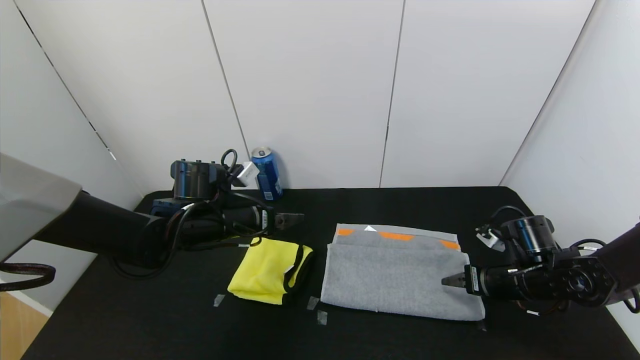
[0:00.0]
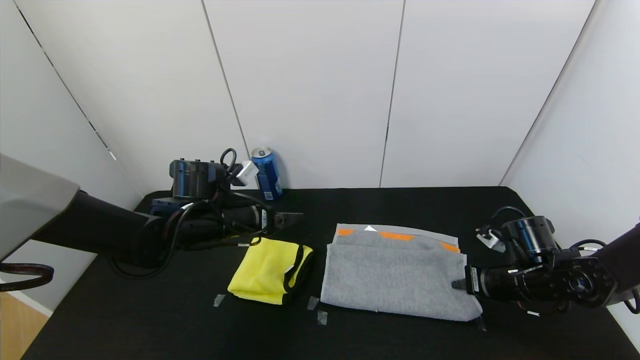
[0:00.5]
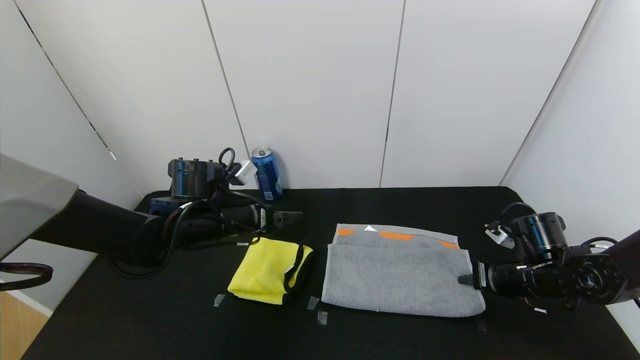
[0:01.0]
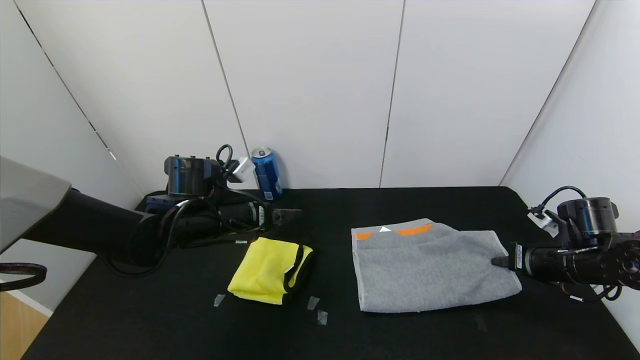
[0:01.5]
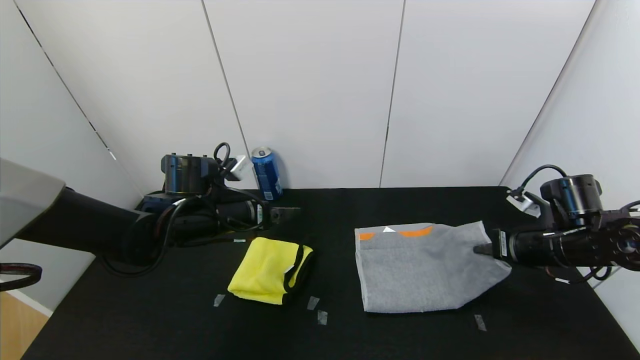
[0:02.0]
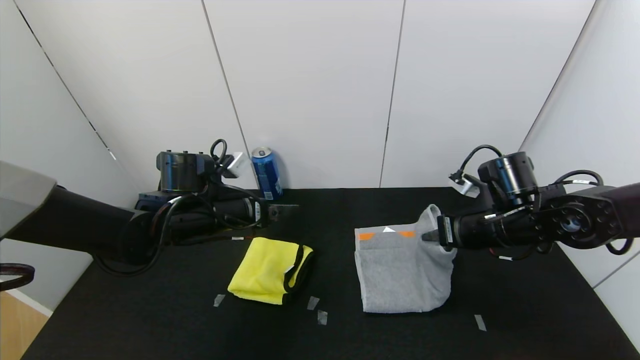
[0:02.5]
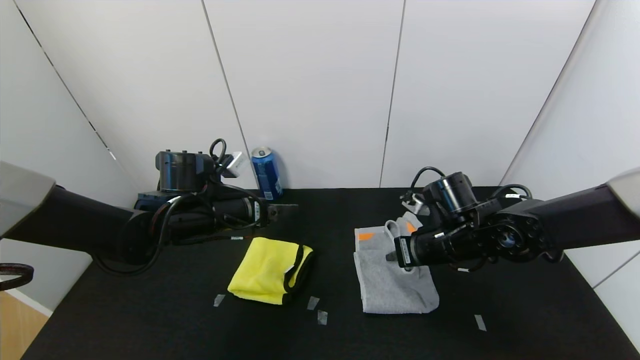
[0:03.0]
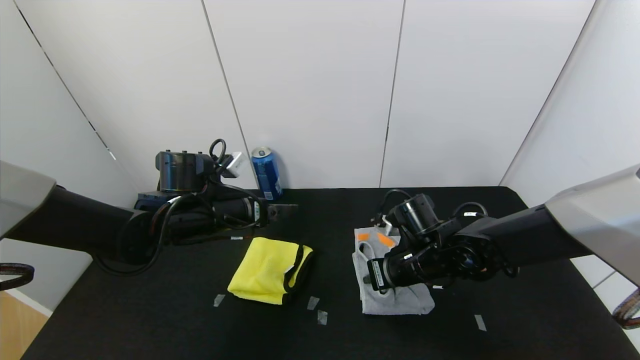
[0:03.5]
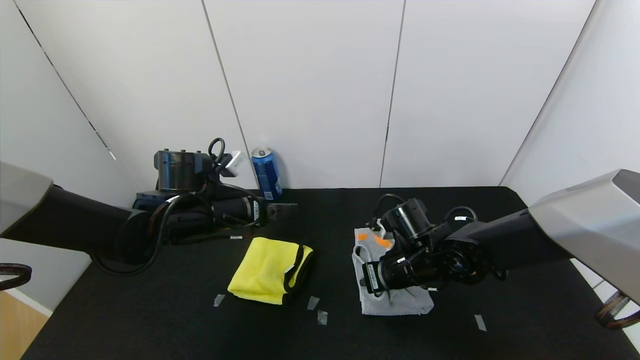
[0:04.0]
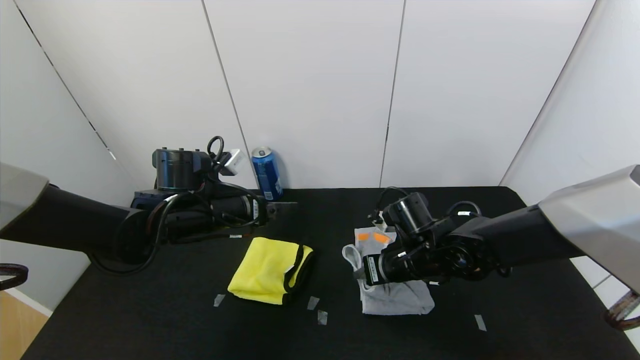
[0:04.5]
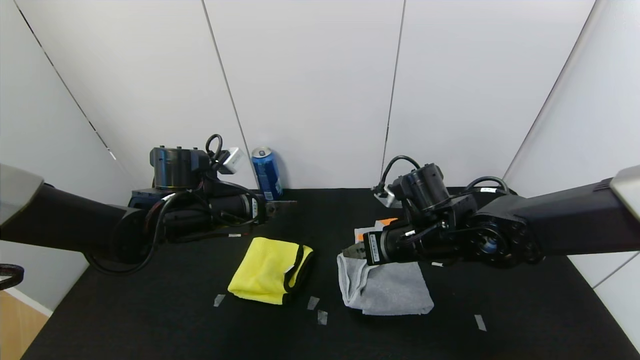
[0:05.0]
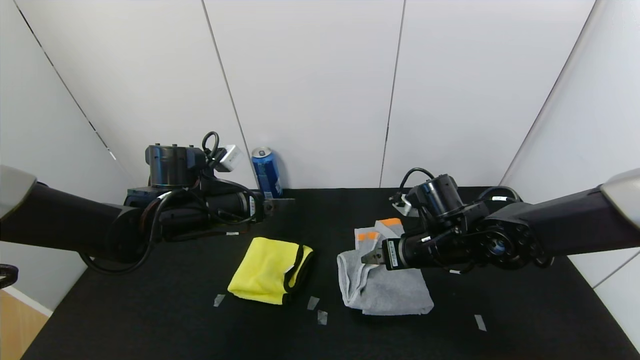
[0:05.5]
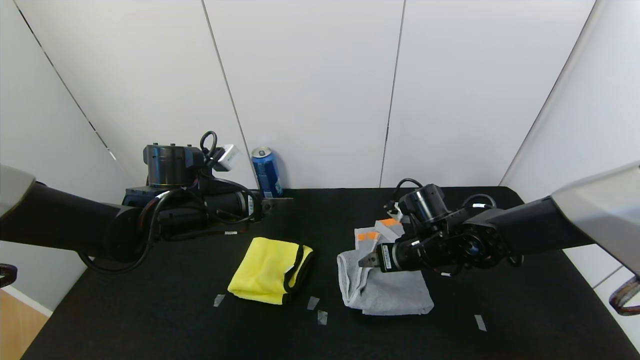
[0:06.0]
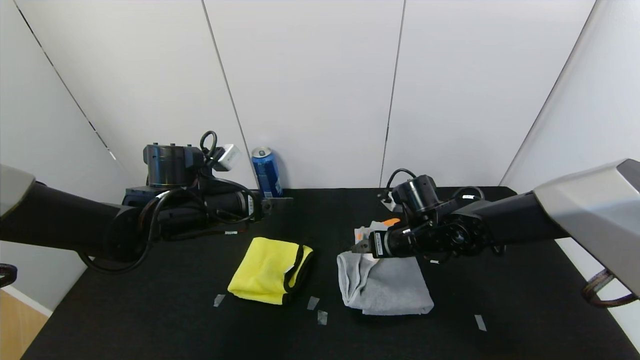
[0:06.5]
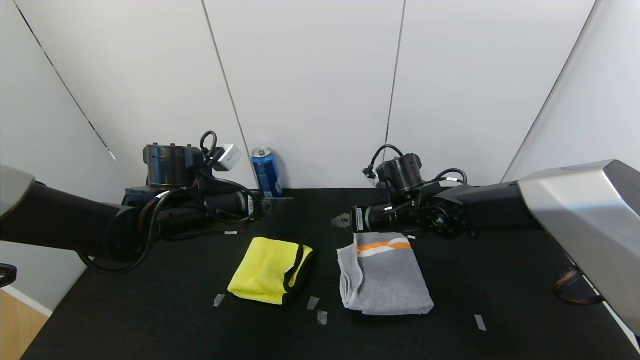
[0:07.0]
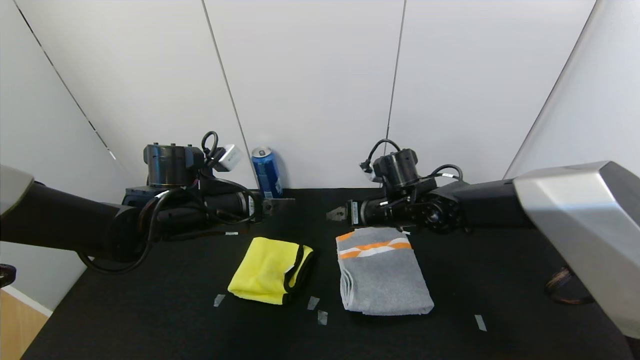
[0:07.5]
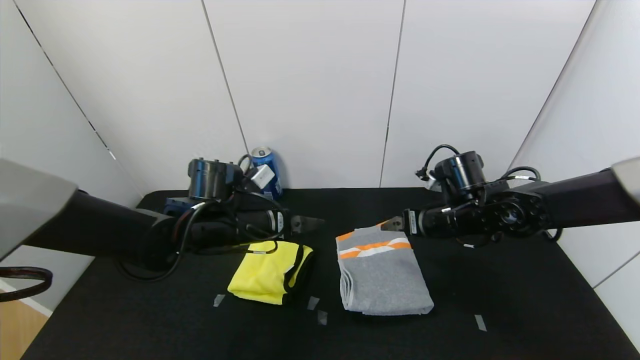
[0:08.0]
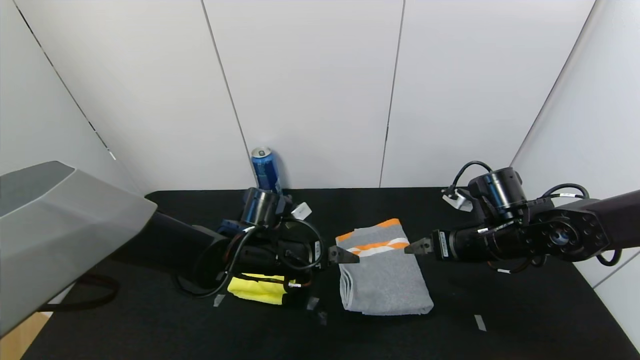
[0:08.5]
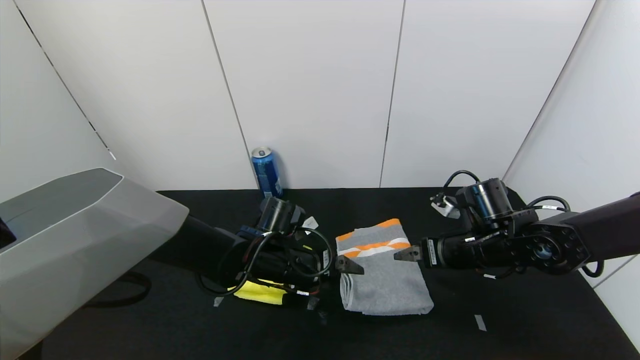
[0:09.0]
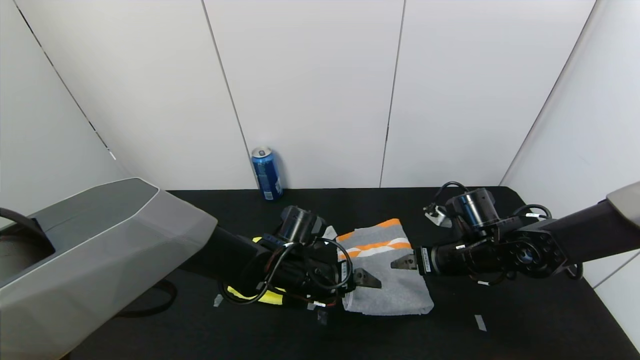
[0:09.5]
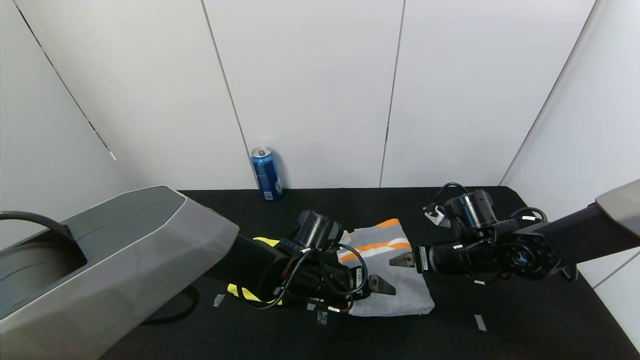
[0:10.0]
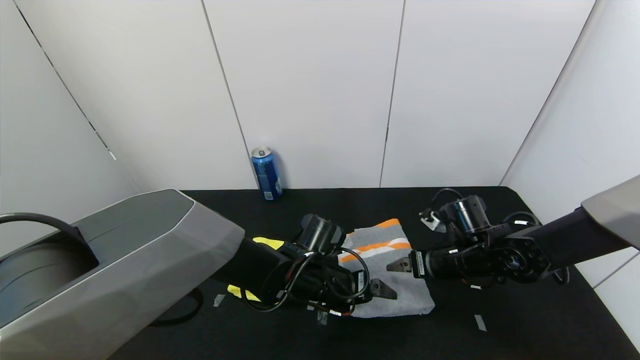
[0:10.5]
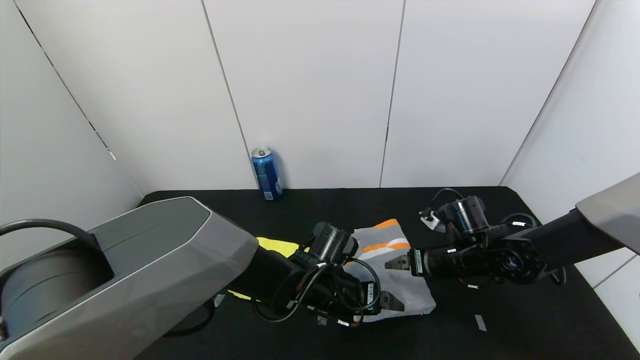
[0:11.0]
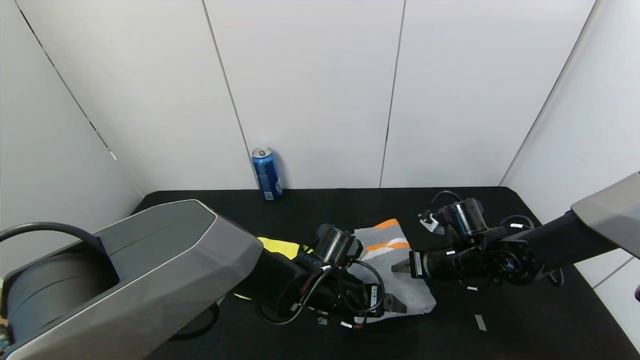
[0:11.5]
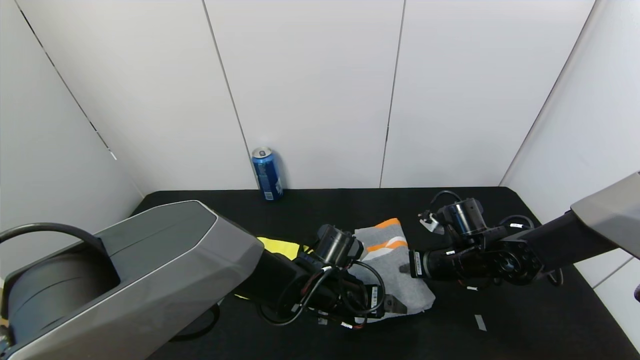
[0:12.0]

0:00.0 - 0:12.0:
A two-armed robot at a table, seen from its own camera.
Task of the whole recording: Use the gripper to fold the yellow towel and grey towel in half twice,then put the yellow towel on the grey towel.
Step, 0:00.0 - 0:04.5: Fold the gray towel from right to left with right gripper.
0:00.0 - 0:02.0: The right gripper goes some 5 cm upward, and closes.
0:02.0 - 0:04.0: The right gripper goes roughly 20 cm to the left.
0:04.0 - 0:06.0: The right gripper opens up.
0:06.0 - 0:08.0: The right gripper heads to the right, covering some 5 cm. The left gripper moves some 5 cm.
0:08.0 - 0:10.0: The right gripper heads downward, covering roughly 5 cm. The left gripper shifts approximately 15 cm to the right and downward.
0:10.0 - 0:12.0: The right gripper closes its fingers.

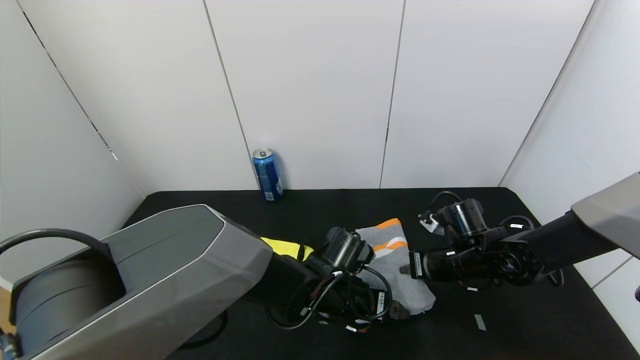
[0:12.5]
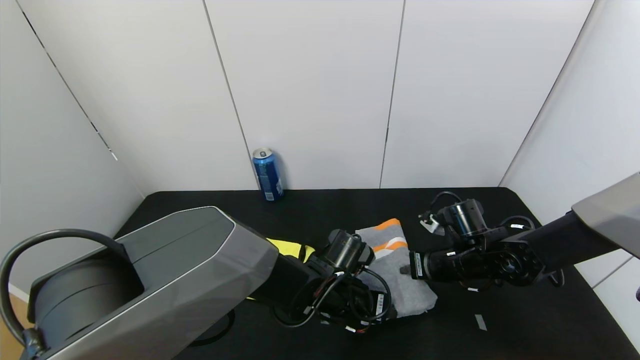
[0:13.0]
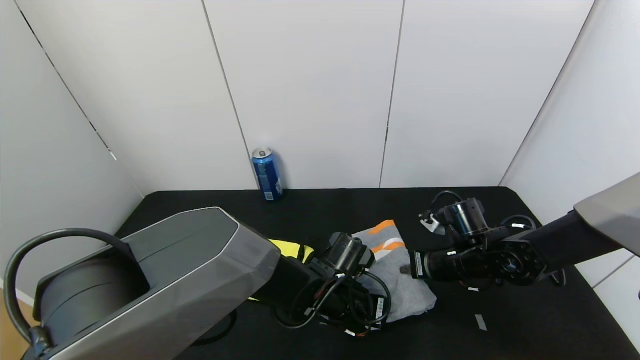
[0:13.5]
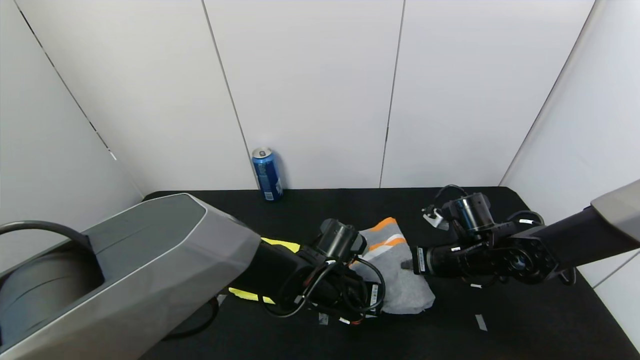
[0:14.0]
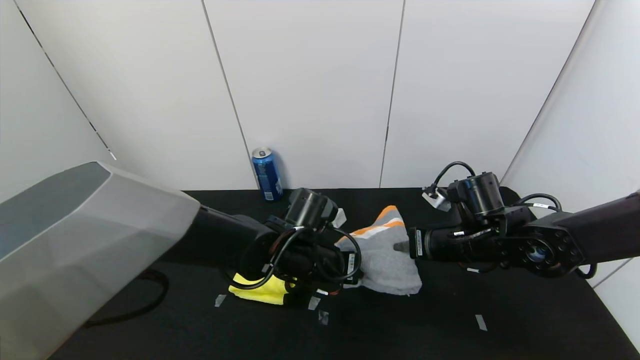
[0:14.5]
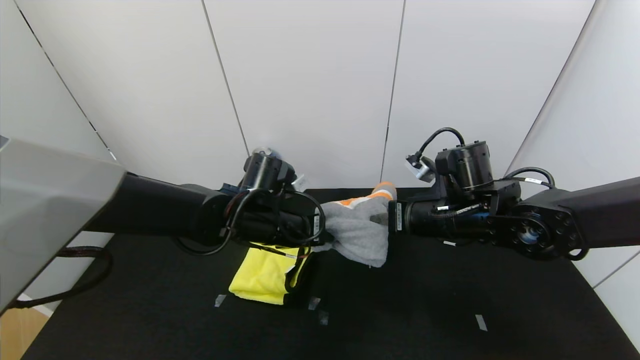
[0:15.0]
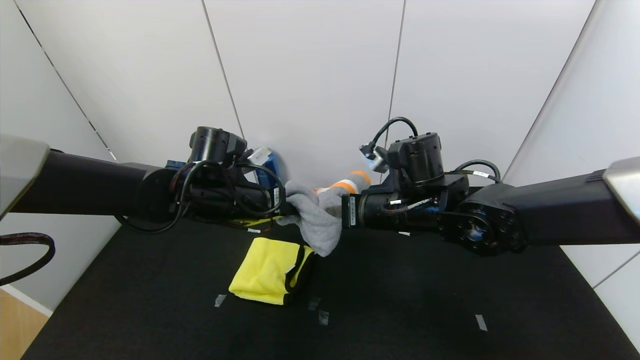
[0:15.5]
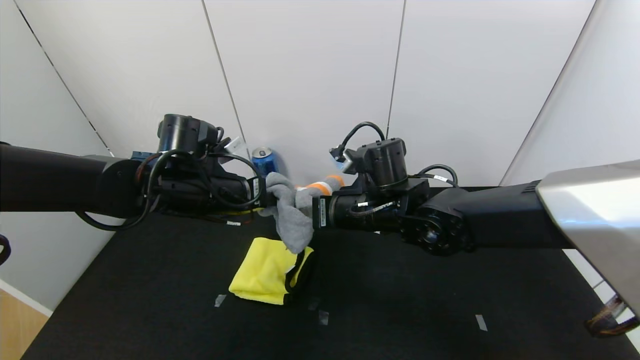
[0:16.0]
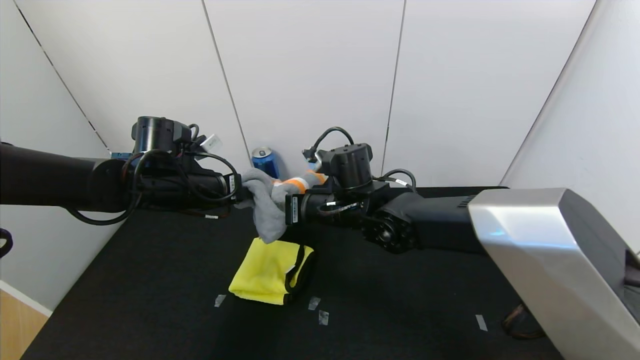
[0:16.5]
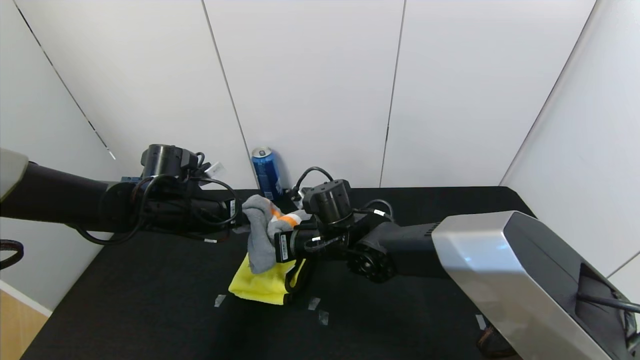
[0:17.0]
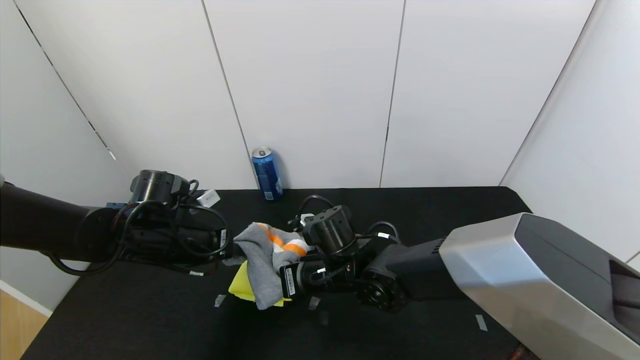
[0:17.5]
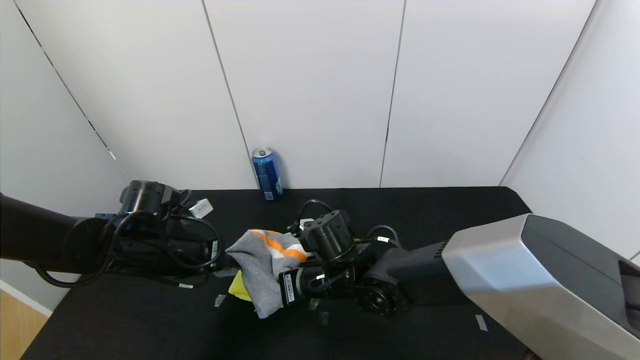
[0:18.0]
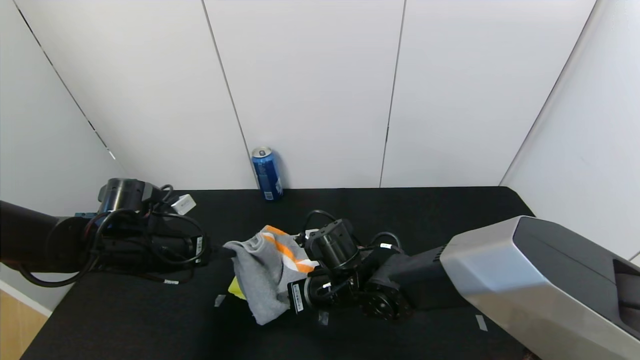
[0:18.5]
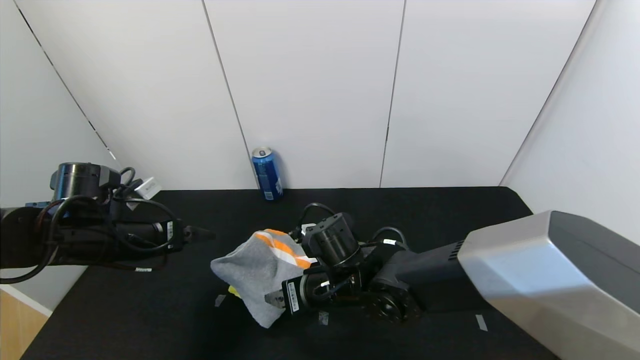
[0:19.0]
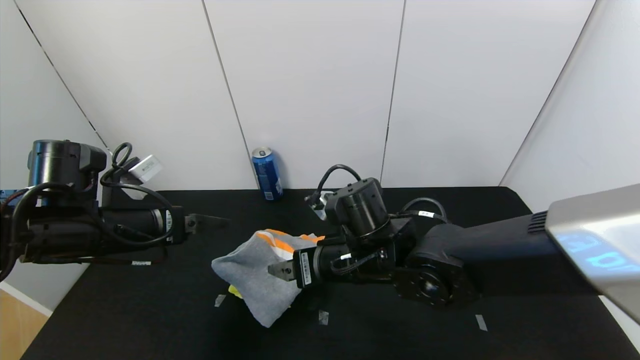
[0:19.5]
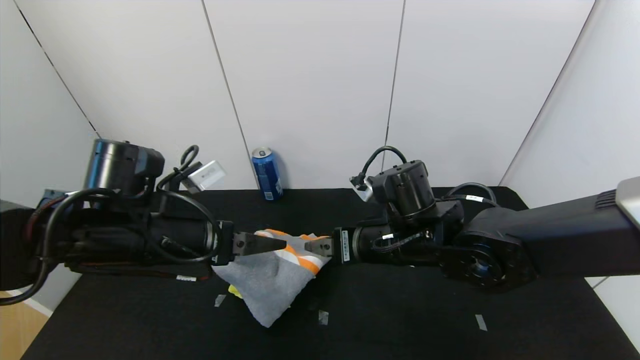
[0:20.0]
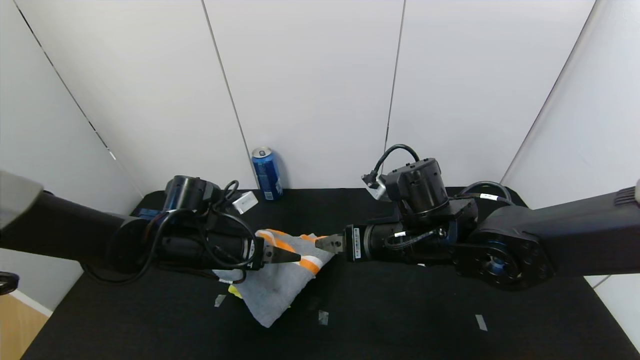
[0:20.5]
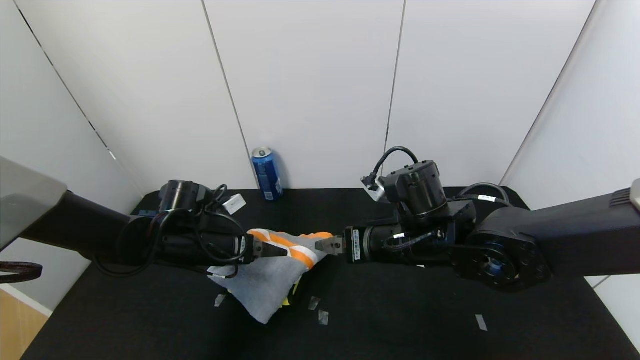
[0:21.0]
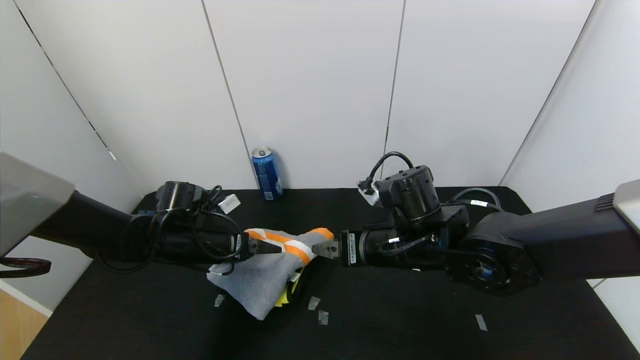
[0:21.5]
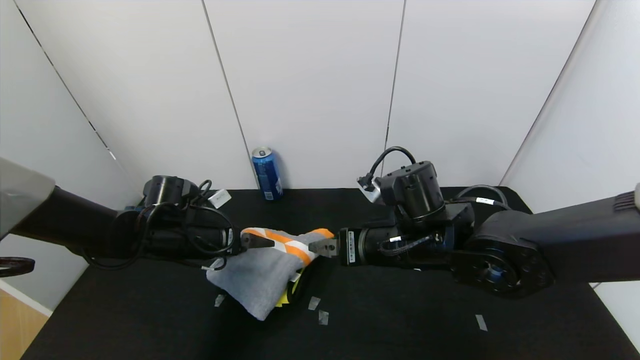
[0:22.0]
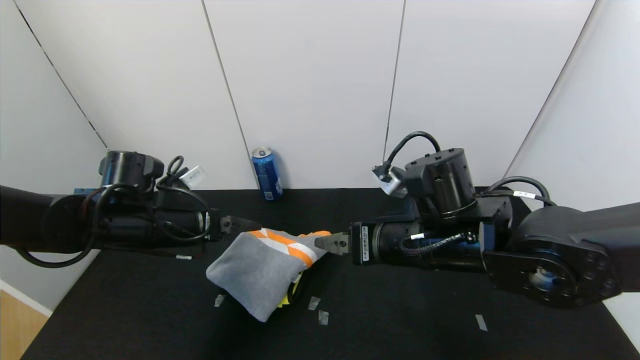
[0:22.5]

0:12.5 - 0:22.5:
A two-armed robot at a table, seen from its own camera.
Task of the whole recording: Use the gripper to fold the yellow towel and grey towel in half twice,then put the yellow towel on the grey towel.
Step, 0:12.5 - 0:19.0: Place the grey towel on the yellow towel with the left gripper.
Step, 0:12.5 - 0:19.0: Place the grey towel on the yellow towel with the right gripper.
Step, 0:19.5 - 0:22.0: Press the gray towel with the left gripper.
0:12.5 - 0:14.5: The left gripper is displaced upward and to the left by some 10 cm, and closes. The right gripper moves upward, some 5 cm.
0:14.5 - 0:16.5: The right gripper shifts approximately 20 cm to the left. The left gripper shifts roughly 20 cm to the left and upward.
0:16.5 - 0:18.5: The grippers both shift downward and backward by roughly 10 cm. The right gripper opens up. Meanwhile the left gripper opens up.
0:18.5 - 0:20.5: The left gripper travels to the right by approximately 10 cm, and opens up. Meanwhile the right gripper heads upward and to the right, covering some 15 cm, and opens up.
0:20.5 - 0:22.5: The left gripper goes roughly 5 cm to the left.
